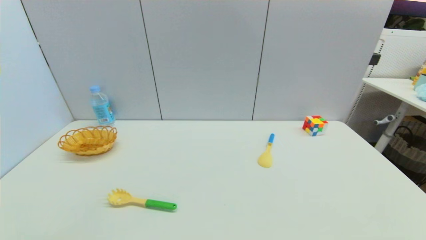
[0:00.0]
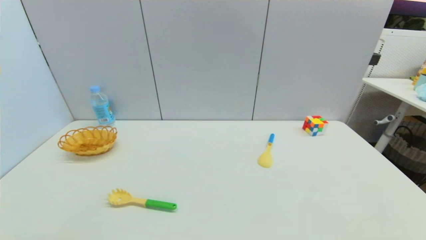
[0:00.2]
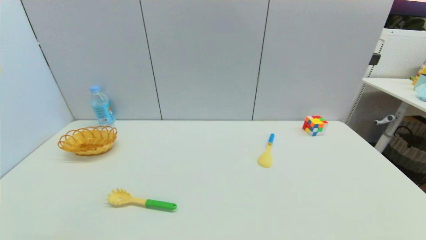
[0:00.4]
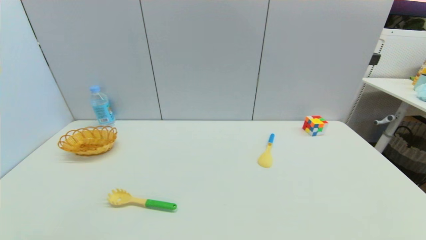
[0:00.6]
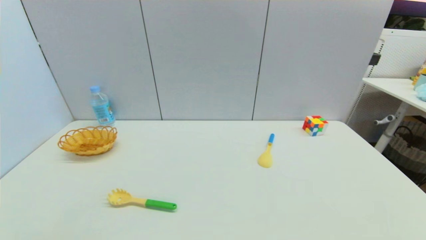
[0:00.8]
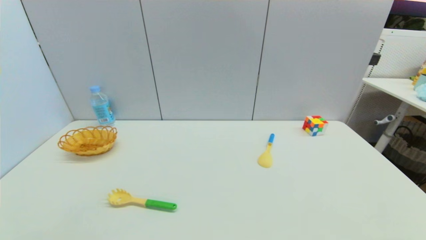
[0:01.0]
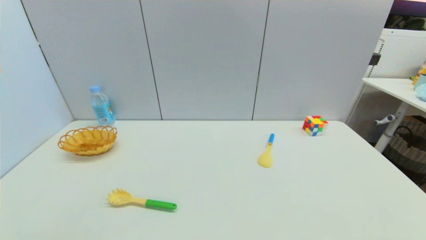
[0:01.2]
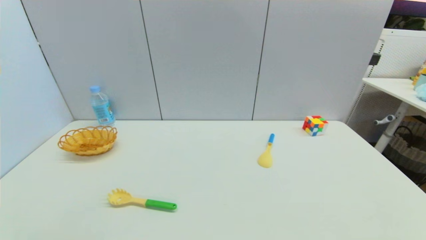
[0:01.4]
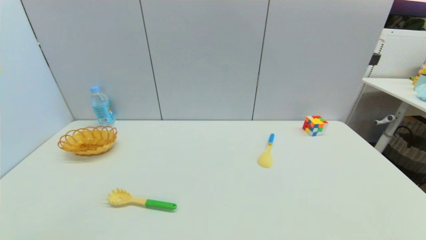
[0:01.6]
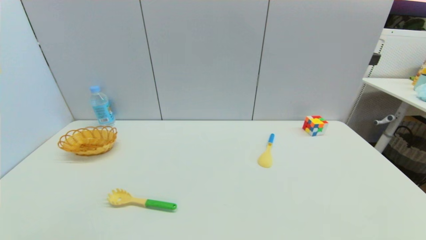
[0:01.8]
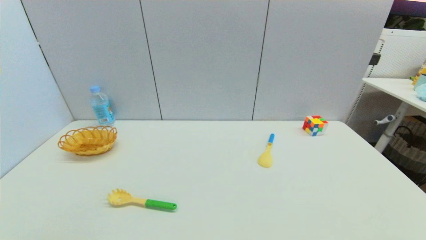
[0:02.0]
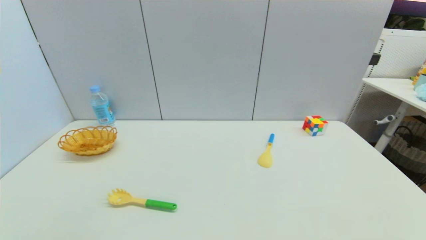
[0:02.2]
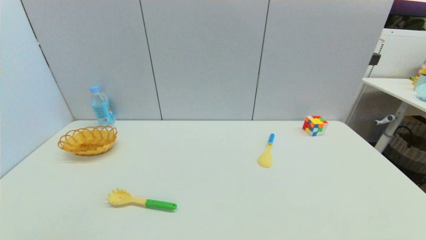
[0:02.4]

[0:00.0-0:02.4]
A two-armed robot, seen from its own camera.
0:01.2 to 0:02.4: The two grippers keep their place.

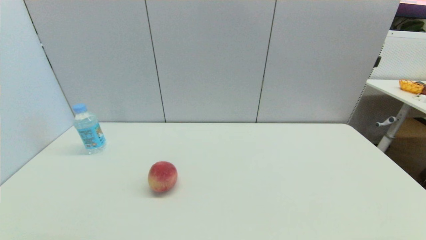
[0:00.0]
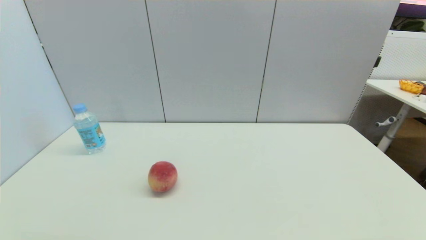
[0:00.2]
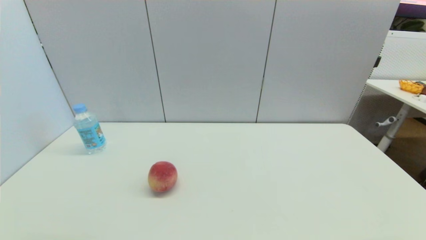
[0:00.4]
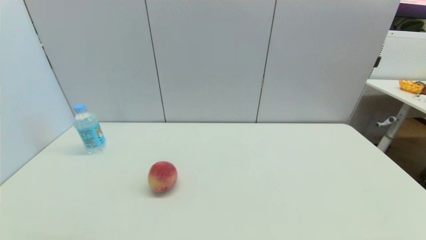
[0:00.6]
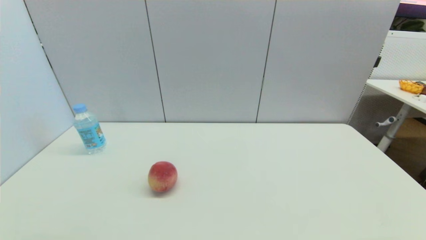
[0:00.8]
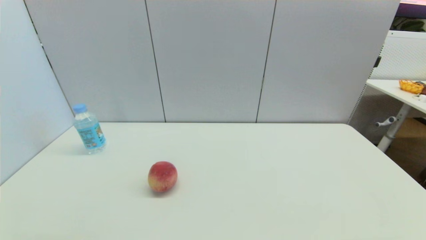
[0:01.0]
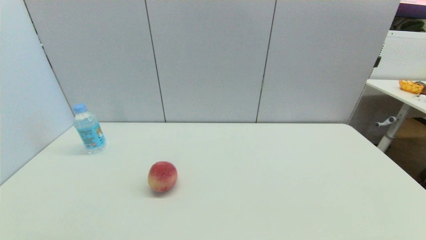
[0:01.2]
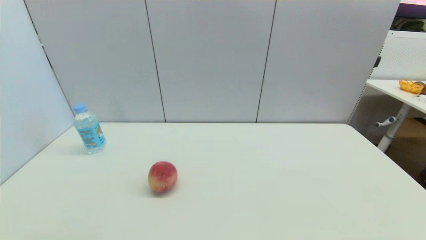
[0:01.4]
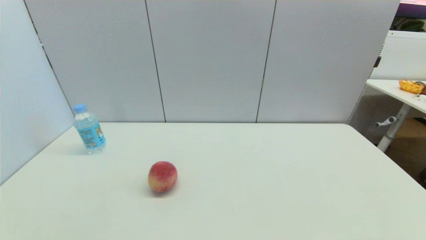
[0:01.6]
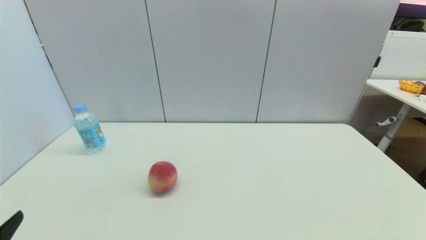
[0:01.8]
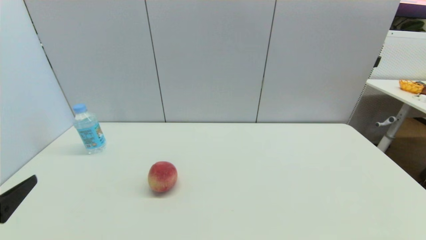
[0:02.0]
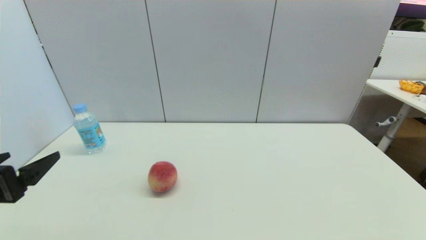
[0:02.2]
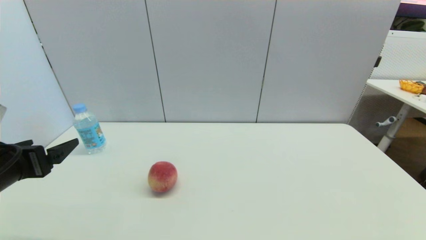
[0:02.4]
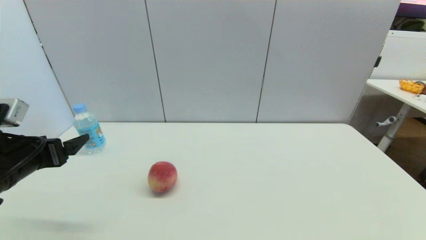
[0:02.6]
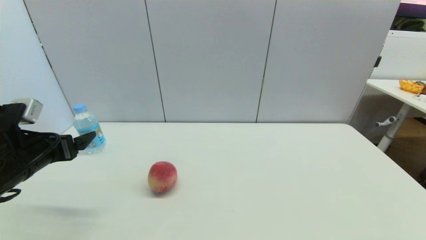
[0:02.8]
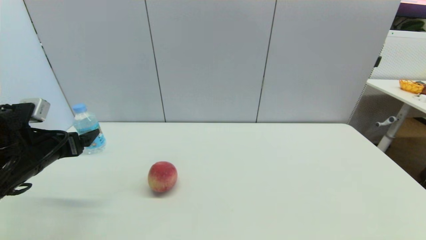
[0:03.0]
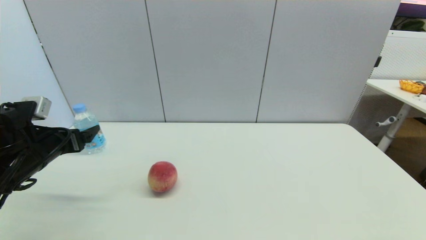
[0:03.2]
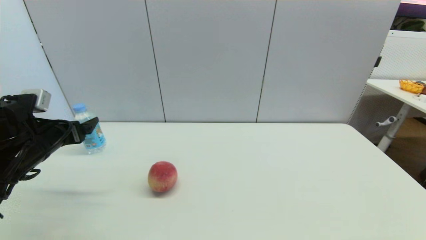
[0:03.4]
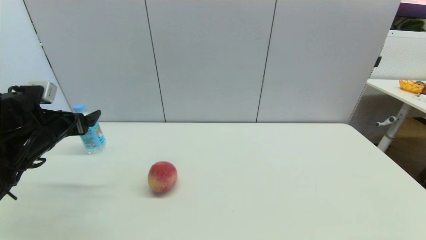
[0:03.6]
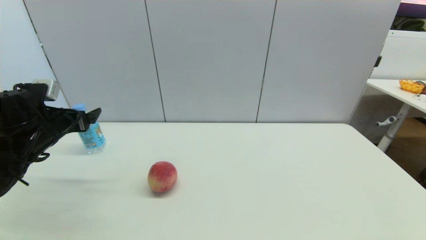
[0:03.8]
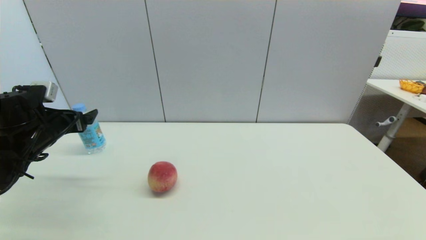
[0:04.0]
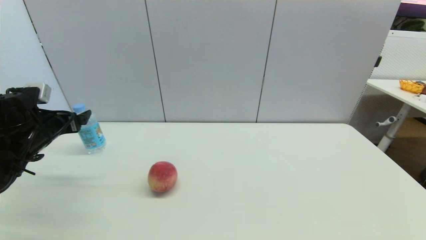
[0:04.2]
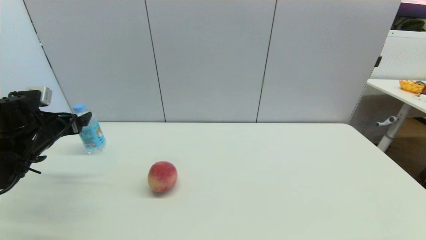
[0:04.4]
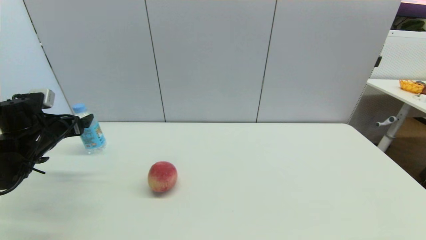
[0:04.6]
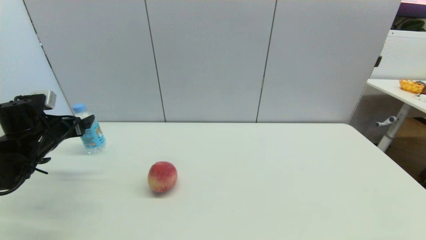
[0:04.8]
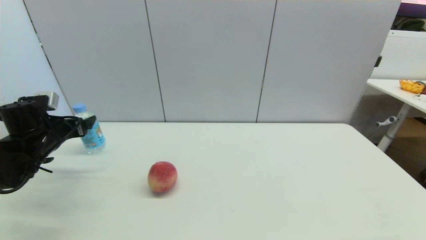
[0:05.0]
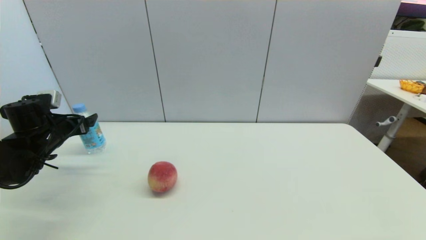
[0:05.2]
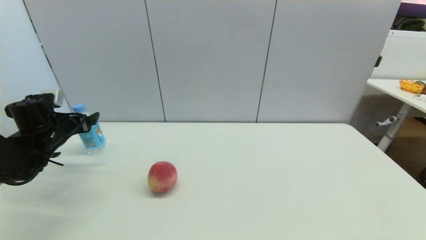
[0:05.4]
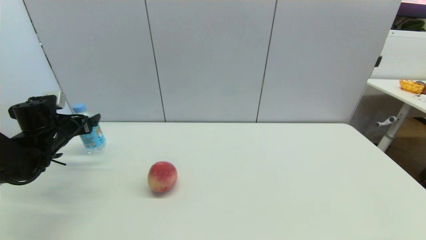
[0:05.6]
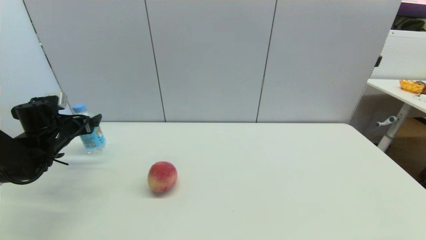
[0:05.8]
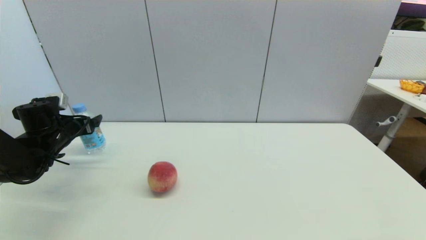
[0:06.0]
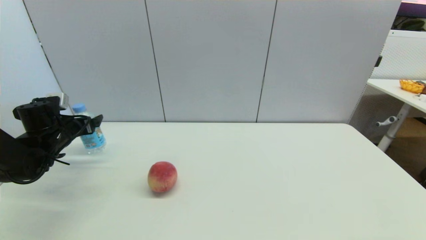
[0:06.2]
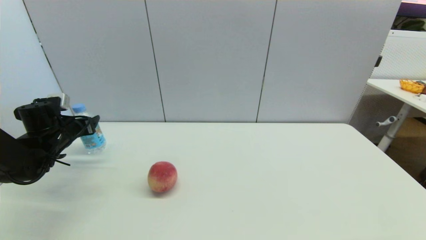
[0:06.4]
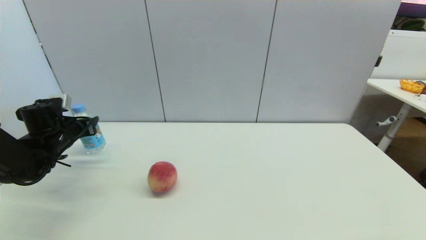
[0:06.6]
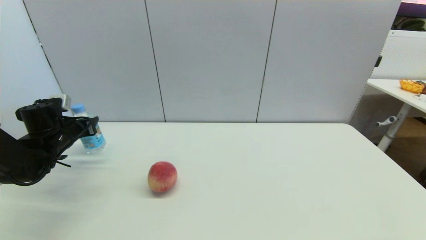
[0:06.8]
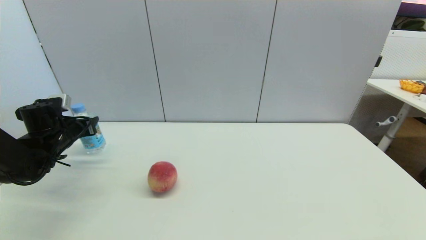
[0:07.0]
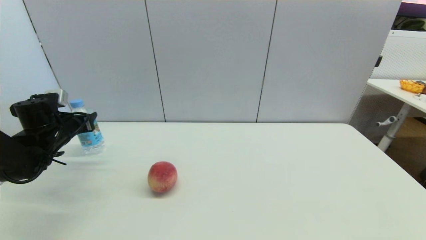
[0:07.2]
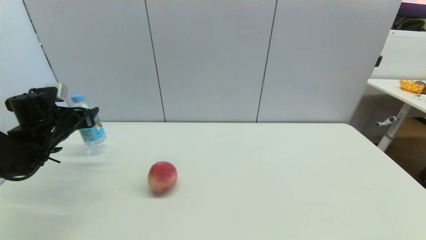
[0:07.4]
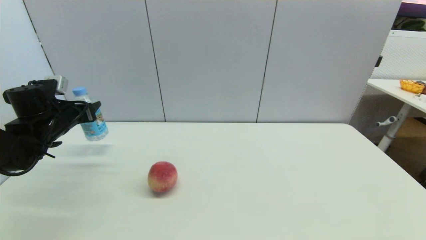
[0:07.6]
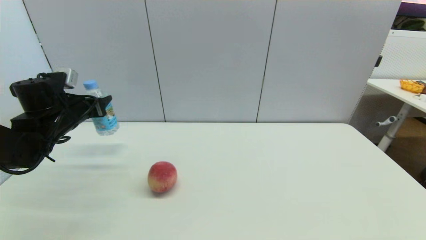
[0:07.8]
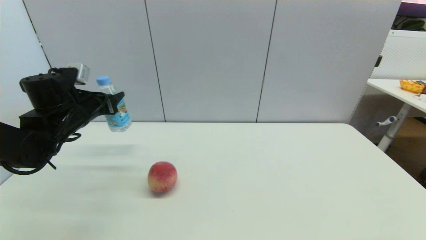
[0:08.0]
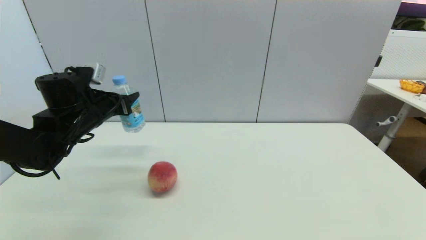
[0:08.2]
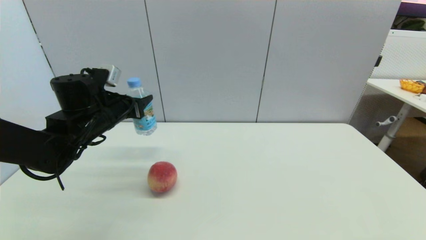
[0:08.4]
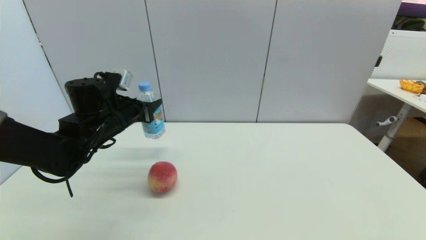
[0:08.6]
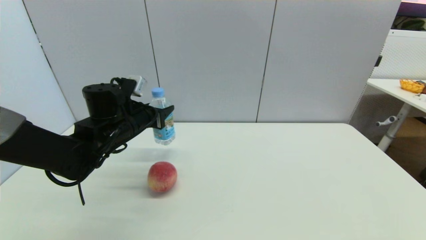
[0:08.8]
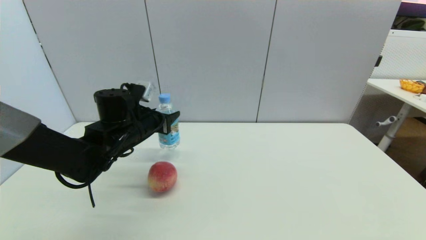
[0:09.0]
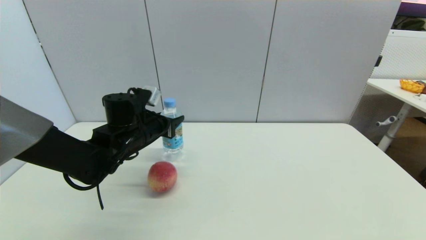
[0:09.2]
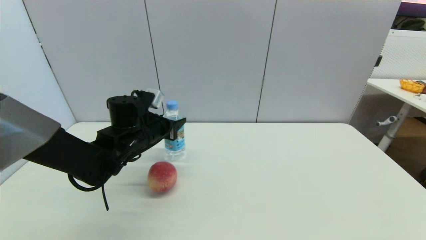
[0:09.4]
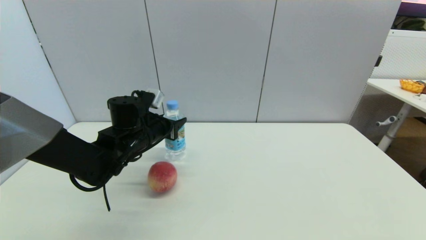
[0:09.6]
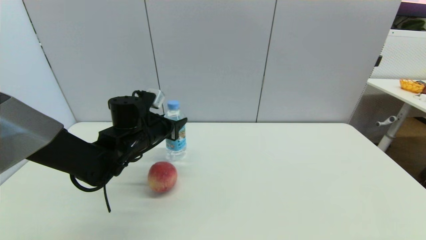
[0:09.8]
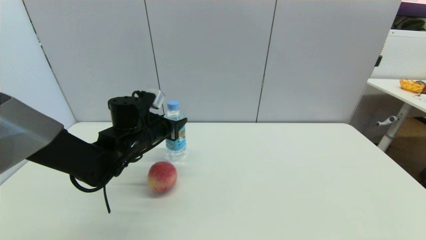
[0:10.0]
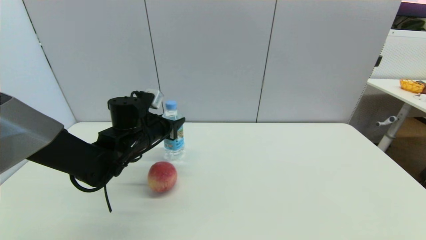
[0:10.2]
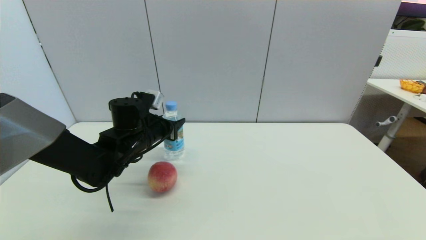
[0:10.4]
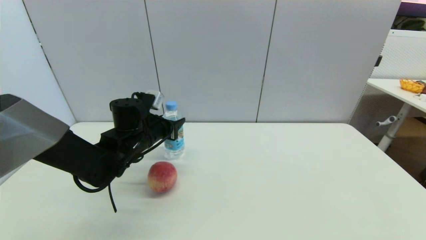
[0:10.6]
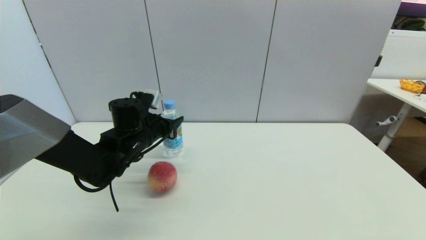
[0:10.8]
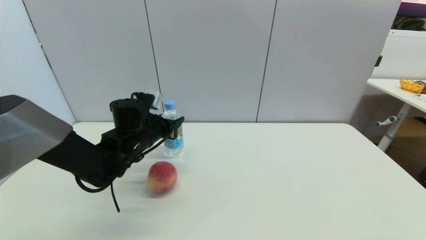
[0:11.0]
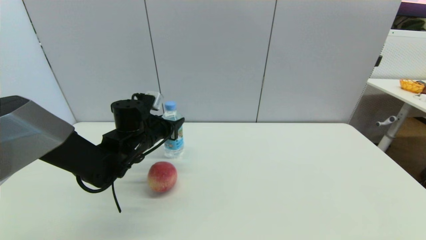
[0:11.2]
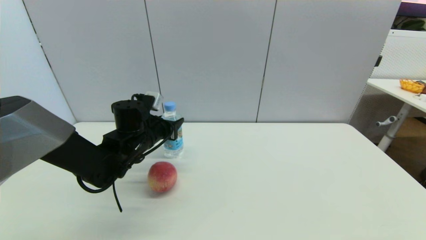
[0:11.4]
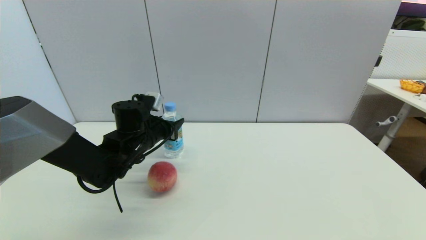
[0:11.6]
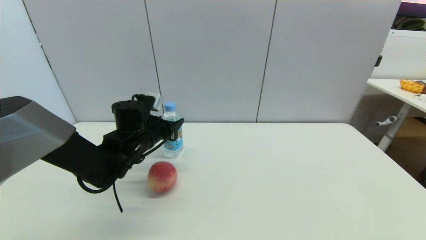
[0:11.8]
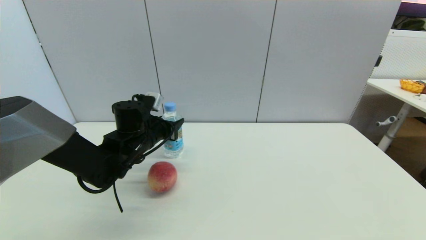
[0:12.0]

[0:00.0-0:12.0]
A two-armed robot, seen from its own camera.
Step, 0:01.4 to 0:06.6: Grasp the soda water with left gripper.
0:01.6 to 0:03.0: The left gripper goes some 25 cm forward.
0:03.0 to 0:04.4: The left gripper goes approximately 5 cm forward.
0:04.4 to 0:06.0: The left gripper moves approximately 5 cm.
0:06.0 to 0:07.6: The left gripper ends up some 5 cm from where it was, and closes its fingers.
0:07.6 to 0:09.0: The left gripper travels to the right by about 20 cm.
0:09.0 to 0:10.4: The grippers make only small movements.
0:10.4 to 0:12.0: The two grippers keep their place.

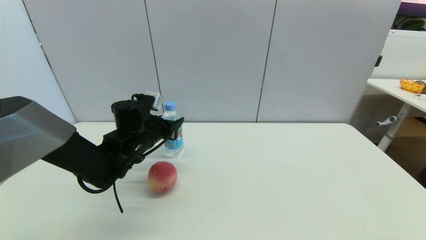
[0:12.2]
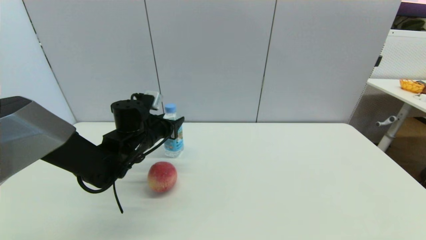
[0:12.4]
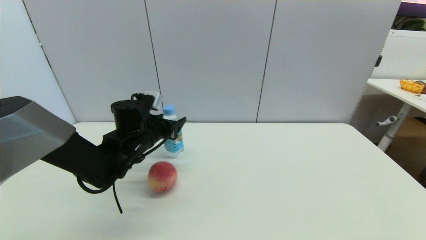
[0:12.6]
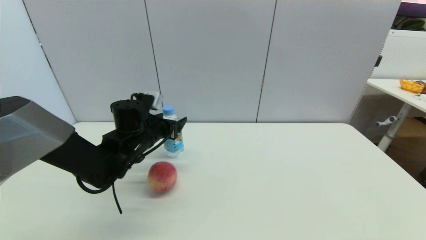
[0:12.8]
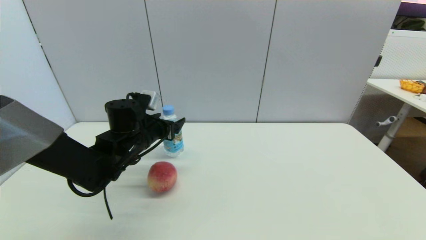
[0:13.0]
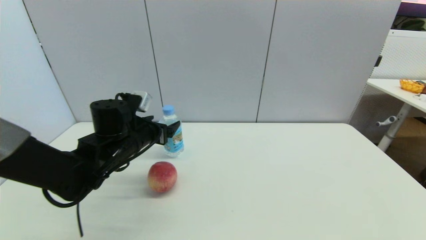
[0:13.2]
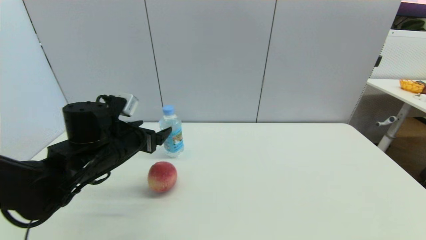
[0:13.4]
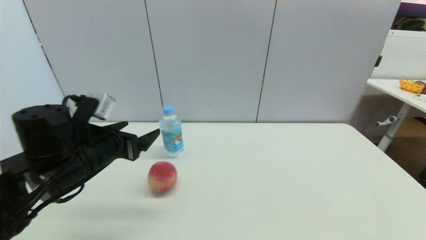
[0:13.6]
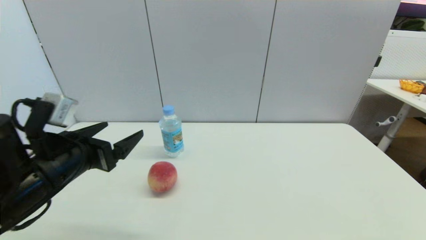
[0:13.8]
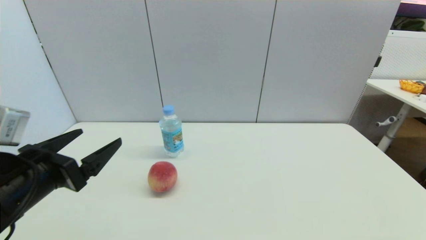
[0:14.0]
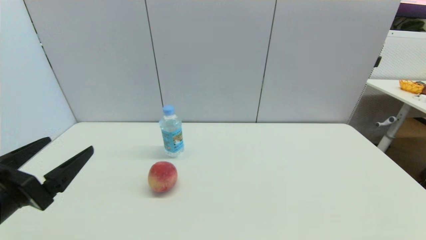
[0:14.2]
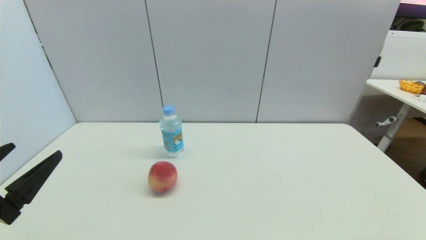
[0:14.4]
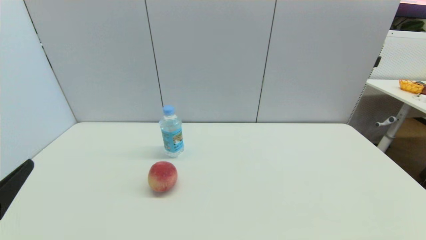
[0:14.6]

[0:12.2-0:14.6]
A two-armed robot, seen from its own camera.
0:12.2 to 0:13.4: The left gripper is displaced backward by roughly 10 cm, and opens its fingers.
0:13.4 to 0:14.6: The left gripper goes some 25 cm backward and to the left.
